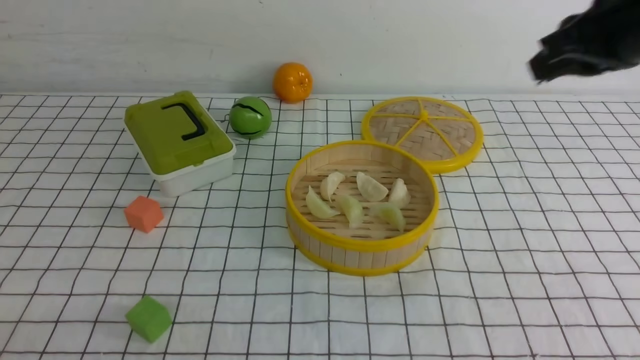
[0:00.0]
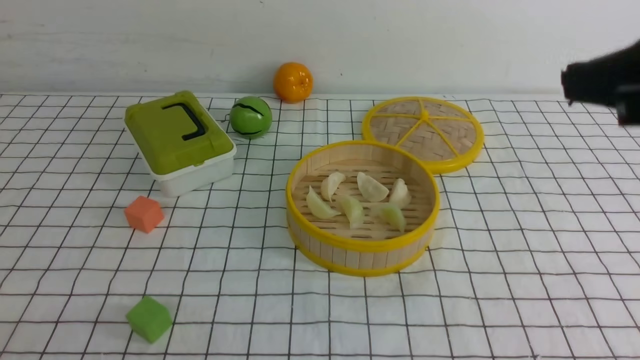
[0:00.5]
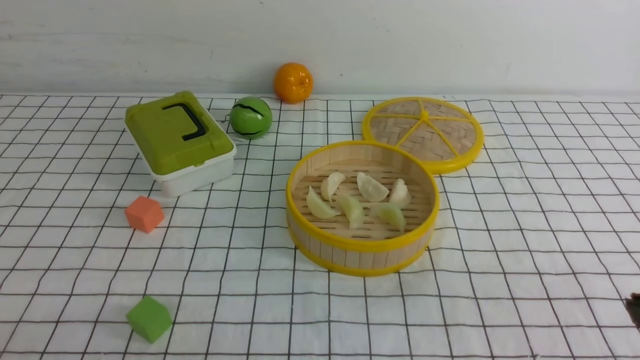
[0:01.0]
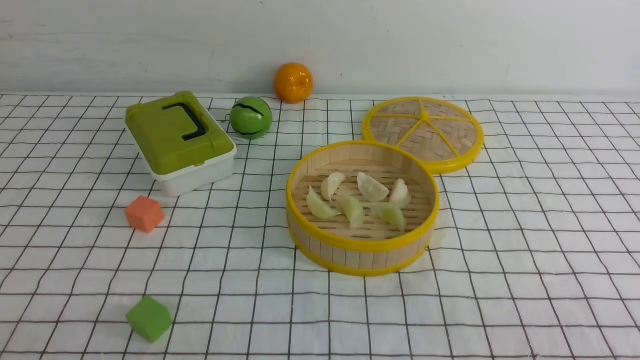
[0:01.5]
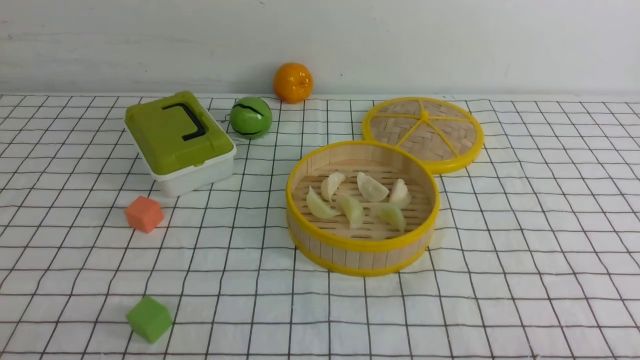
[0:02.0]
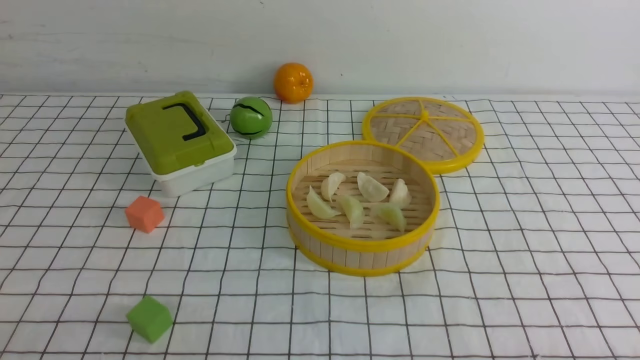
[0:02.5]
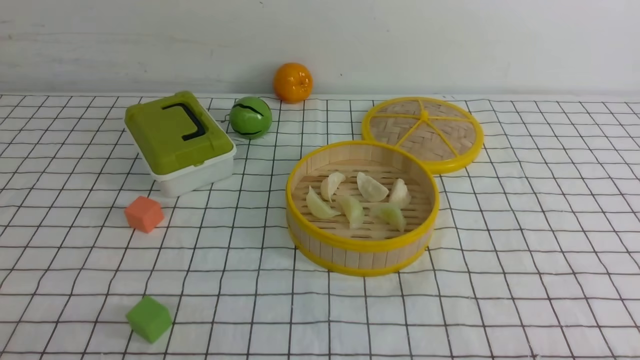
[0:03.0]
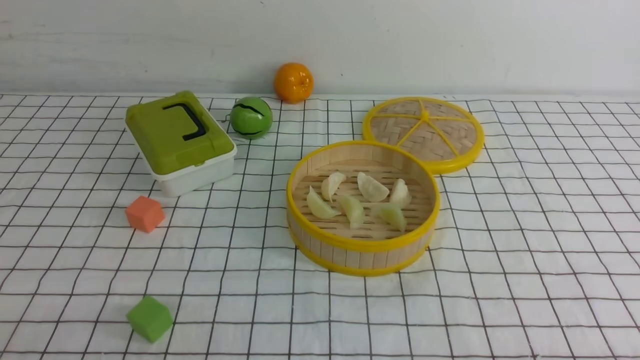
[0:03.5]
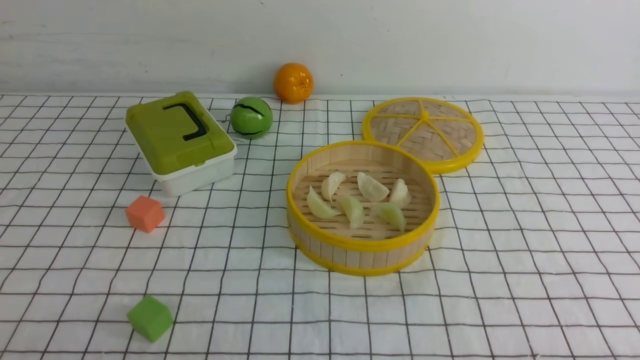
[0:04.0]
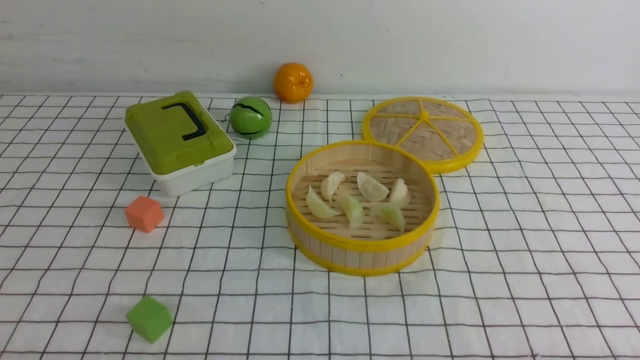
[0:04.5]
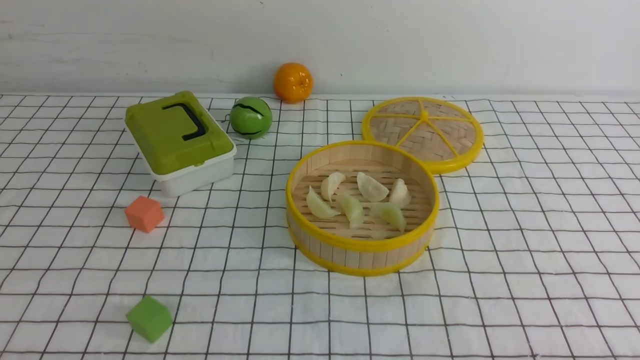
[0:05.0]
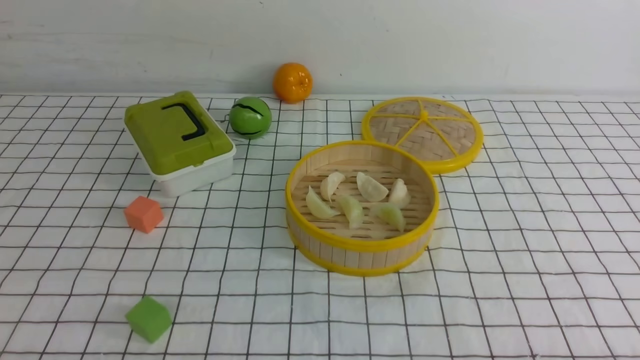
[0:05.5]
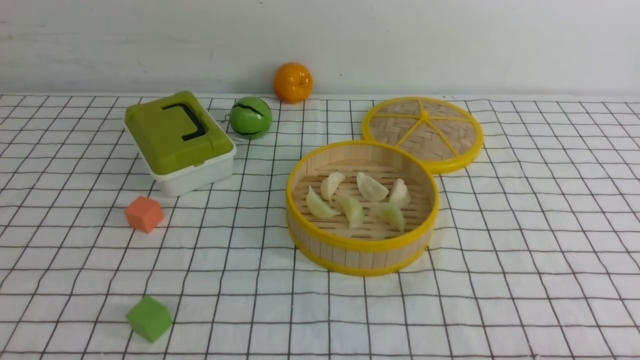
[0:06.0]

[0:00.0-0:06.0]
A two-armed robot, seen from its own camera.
Task of the whole recording: put the dumplings into the steamer on the table with the white tablecloth.
0:00.0 to 0:02.0: The right gripper is displaced backward and downward by roughly 35 cm.
